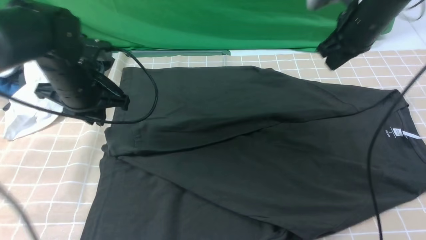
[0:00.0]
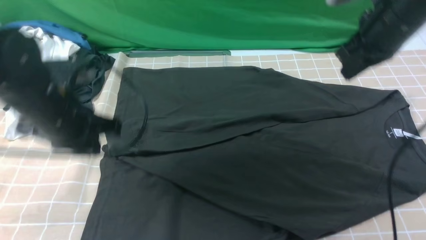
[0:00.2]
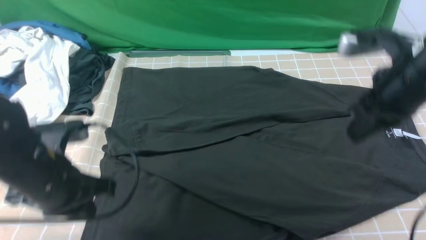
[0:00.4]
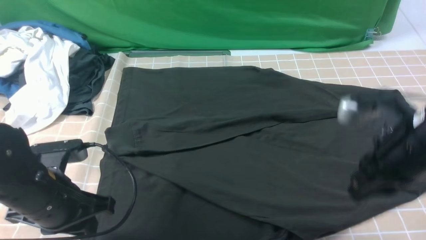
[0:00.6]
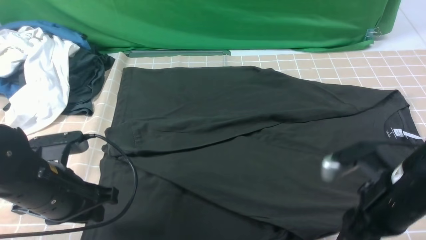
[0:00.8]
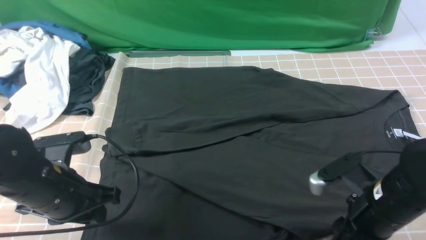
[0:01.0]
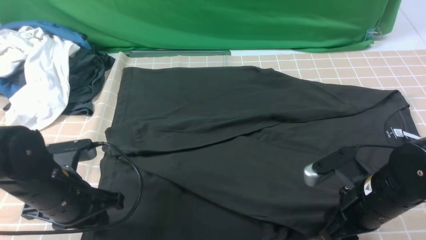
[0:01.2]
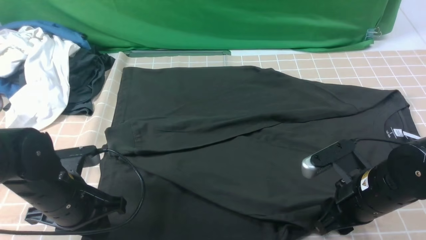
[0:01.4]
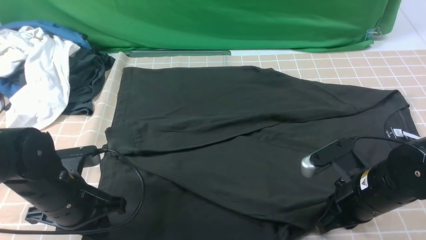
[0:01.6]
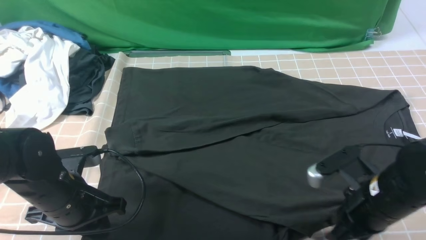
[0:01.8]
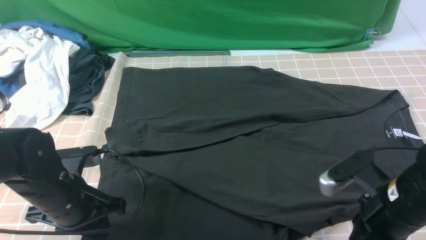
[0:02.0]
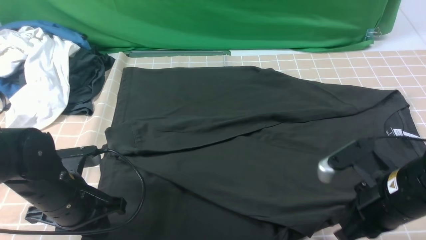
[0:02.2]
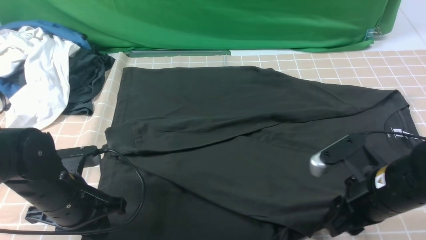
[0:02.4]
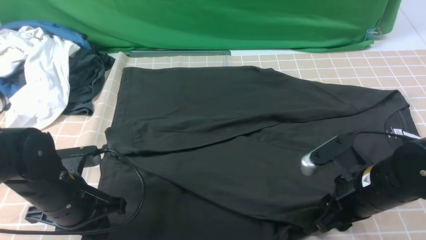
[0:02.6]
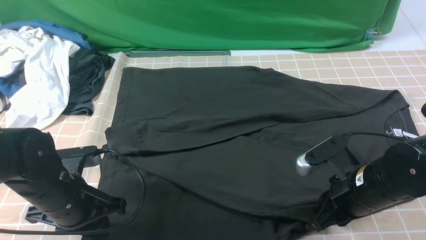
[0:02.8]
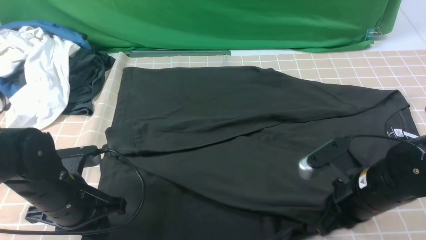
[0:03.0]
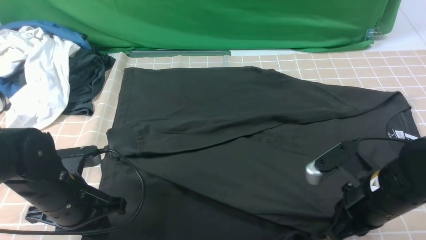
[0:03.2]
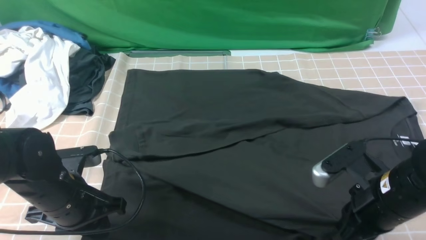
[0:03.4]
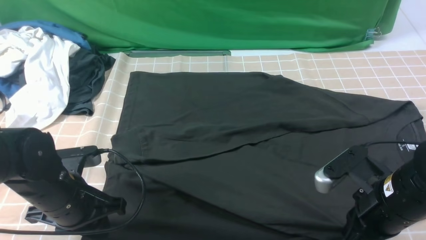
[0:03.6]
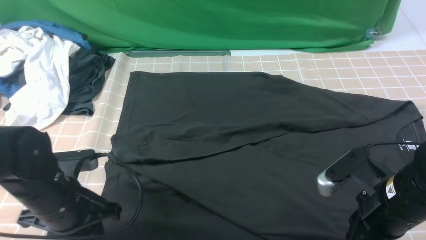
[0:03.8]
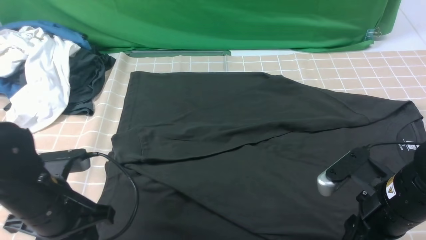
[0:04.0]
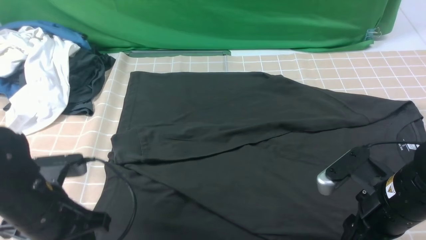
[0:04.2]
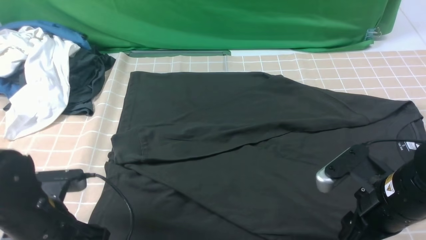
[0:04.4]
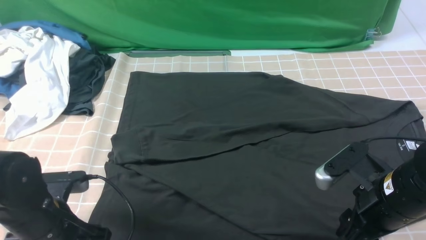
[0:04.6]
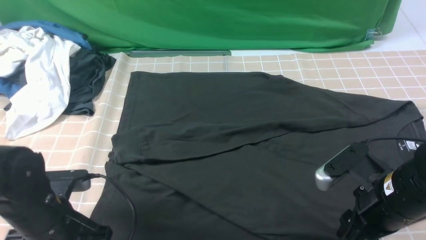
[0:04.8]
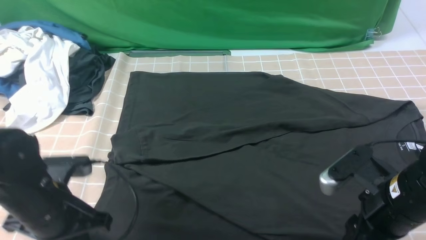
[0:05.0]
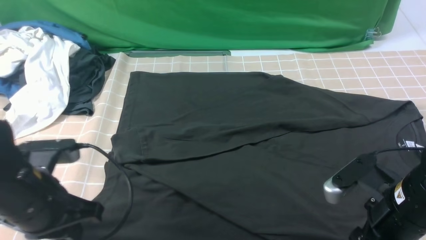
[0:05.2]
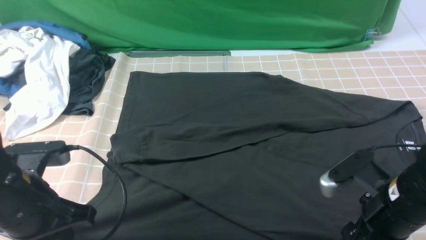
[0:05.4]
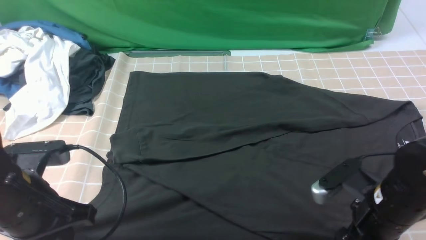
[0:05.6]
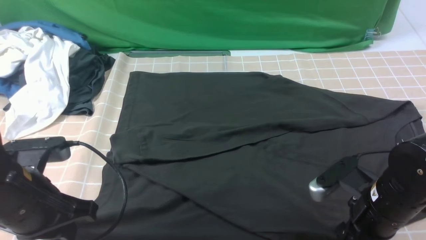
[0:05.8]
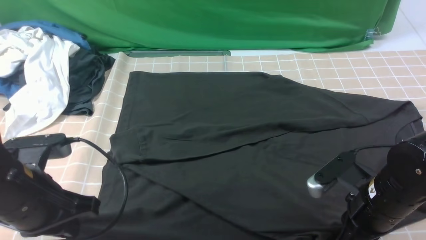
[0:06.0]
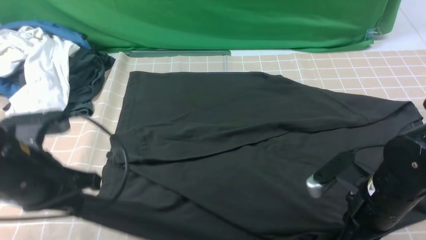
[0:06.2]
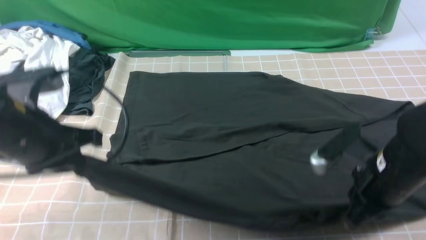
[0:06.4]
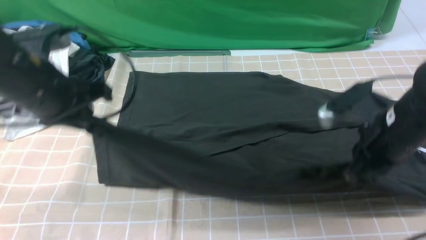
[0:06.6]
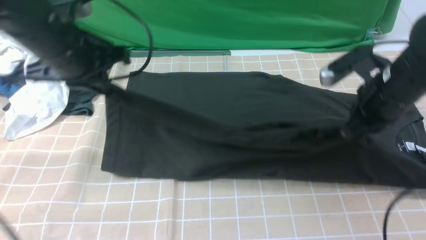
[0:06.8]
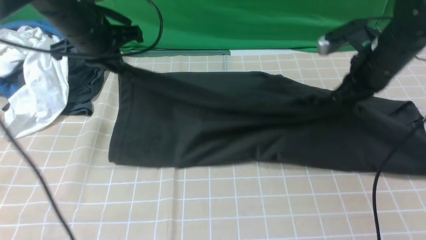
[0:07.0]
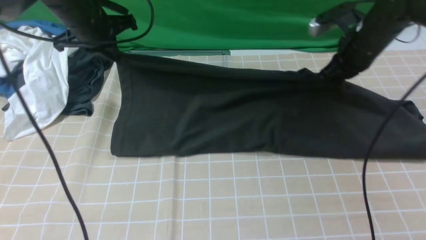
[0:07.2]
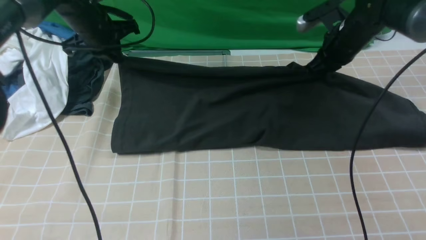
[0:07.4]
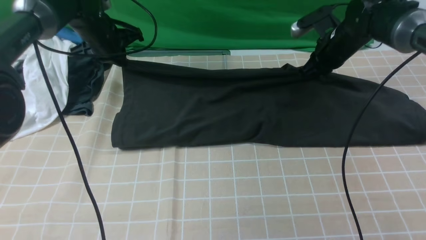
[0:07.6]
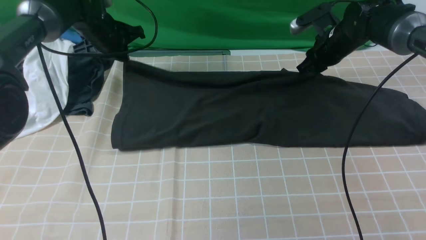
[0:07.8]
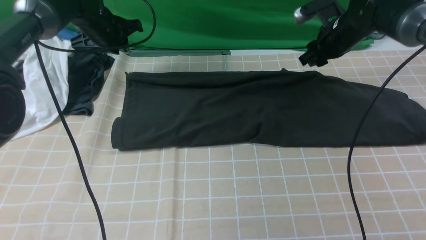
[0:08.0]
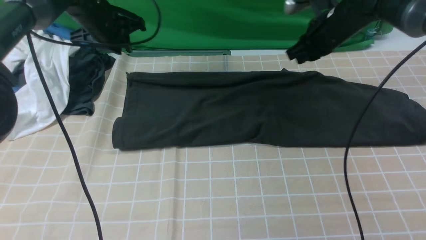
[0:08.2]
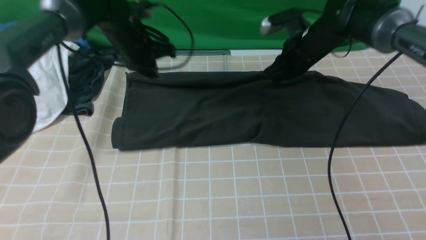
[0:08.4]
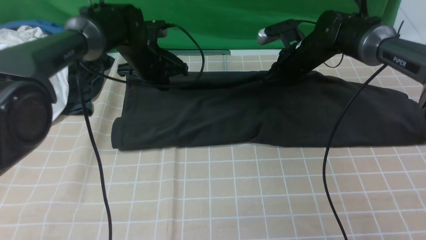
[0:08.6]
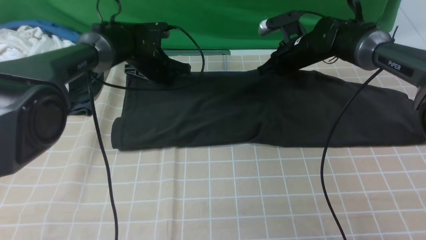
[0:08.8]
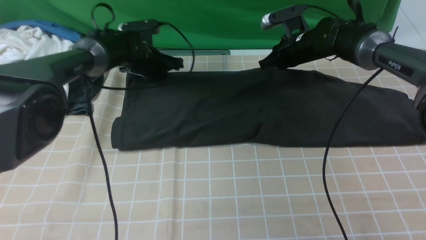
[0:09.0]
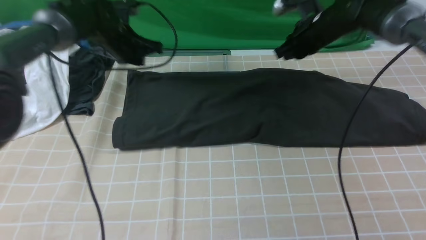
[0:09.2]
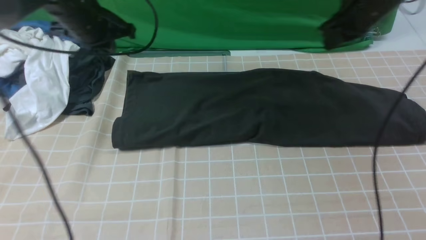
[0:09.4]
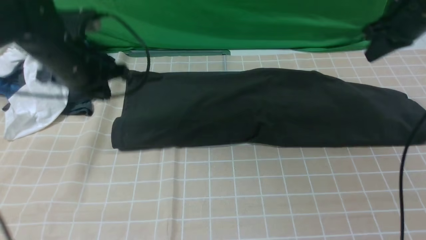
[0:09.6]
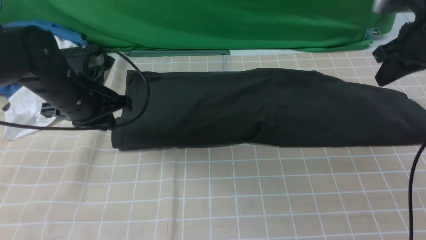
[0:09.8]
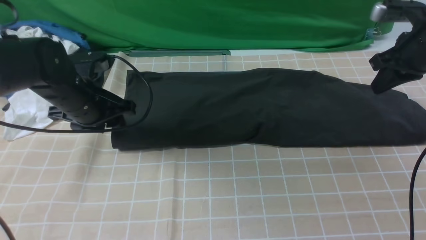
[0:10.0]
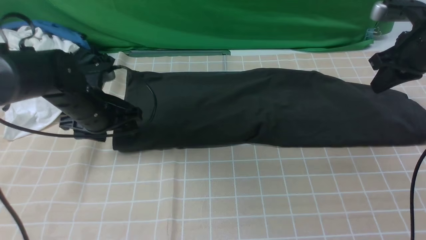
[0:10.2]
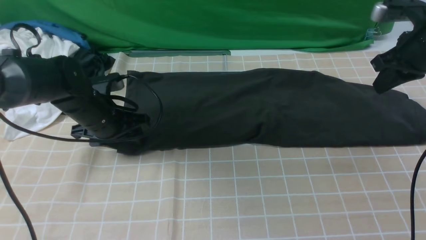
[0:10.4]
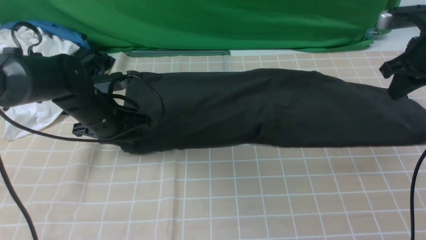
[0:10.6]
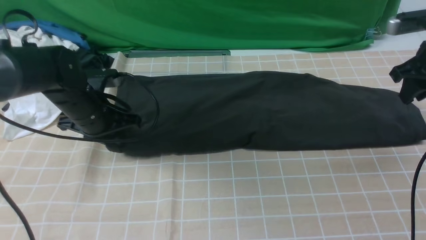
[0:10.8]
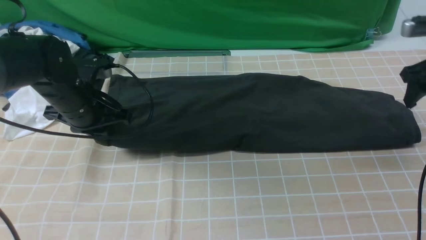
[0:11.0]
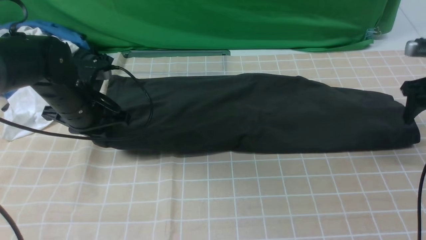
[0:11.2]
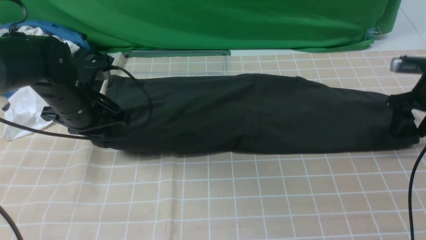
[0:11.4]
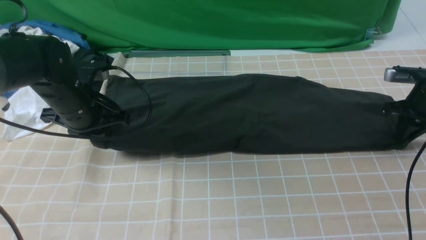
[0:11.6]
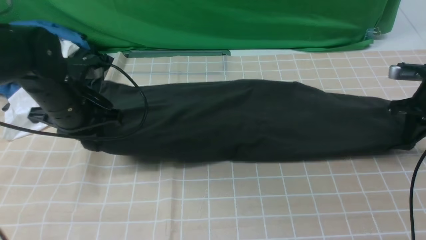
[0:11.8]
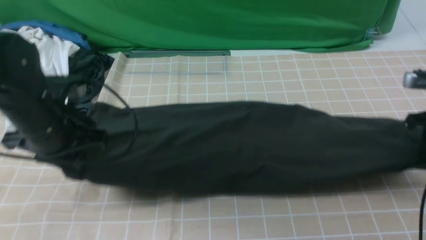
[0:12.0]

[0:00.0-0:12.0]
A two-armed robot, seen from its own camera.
Step, 0:00.0 to 0:05.8: use both arms simultaneously to clamp the lower edge of the clothing fabric.
Step, 0:06.0 to 0:07.8: use both arms to drag the lower edge of the fabric forward and fold it over the upper edge.
0:00.0 to 0:01.6: The right gripper travels backward and downward by approximately 25 cm, and opens, then closes once more. Meanwhile the left gripper shifts roughly 15 cm backward and downward.
0:01.6 to 0:03.0: The right gripper opens, then closes once more.
0:03.0 to 0:04.4: The left gripper opens up; the right gripper opens.
0:04.4 to 0:06.0: The right gripper closes its fingers. The left gripper shifts about 5 cm upward, and closes up.
0:06.0 to 0:07.6: The grippers both shift forward by about 30 cm.
0:07.6 to 0:09.0: The right gripper heads to the left, covering some 5 cm, while the left gripper travels to the right and downward by roughly 10 cm.
0:09.0 to 0:10.4: The right gripper heads to the right, backward and upward, covering about 20 cm, while the left gripper goes some 15 cm backward, and opens its fingers.
0:10.4 to 0:12.0: The left gripper moves backward and upward, roughly 10 cm, and closes. The right gripper heads downward and backward, covering about 10 cm, and opens and closes again.

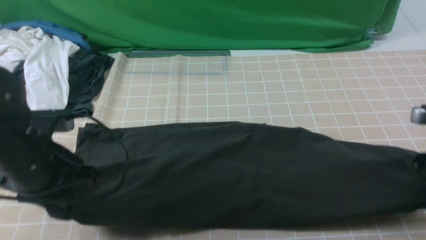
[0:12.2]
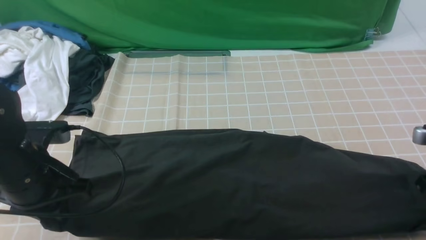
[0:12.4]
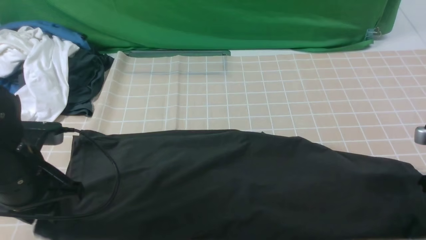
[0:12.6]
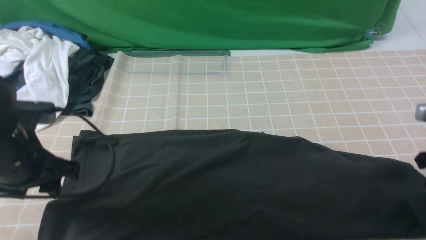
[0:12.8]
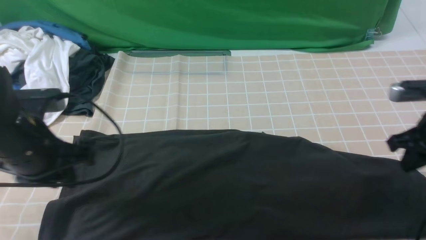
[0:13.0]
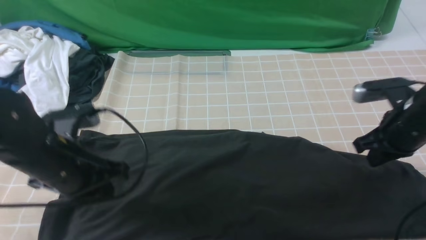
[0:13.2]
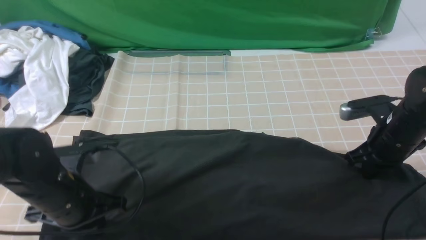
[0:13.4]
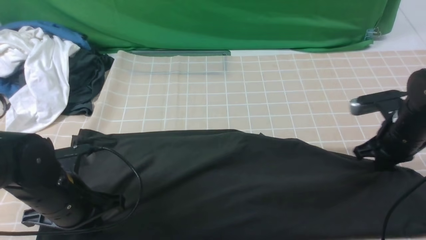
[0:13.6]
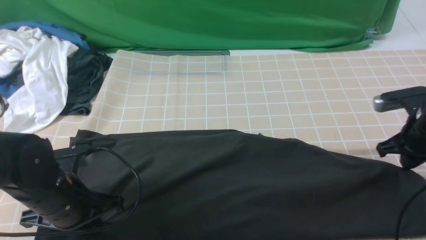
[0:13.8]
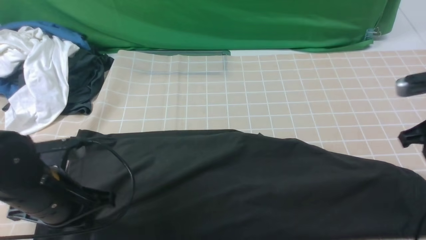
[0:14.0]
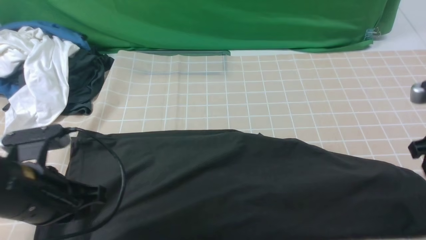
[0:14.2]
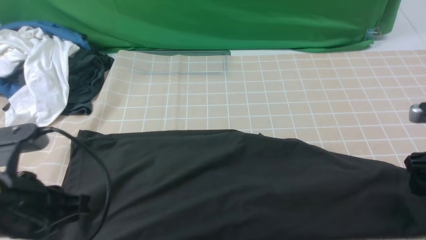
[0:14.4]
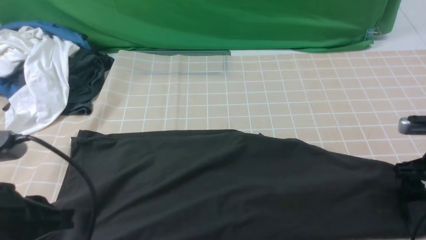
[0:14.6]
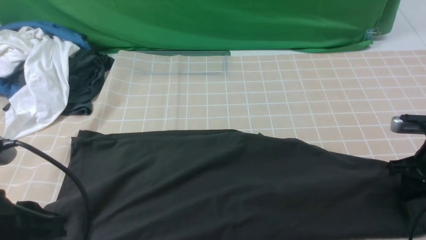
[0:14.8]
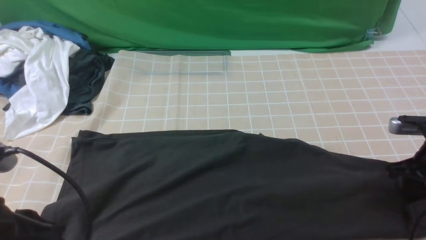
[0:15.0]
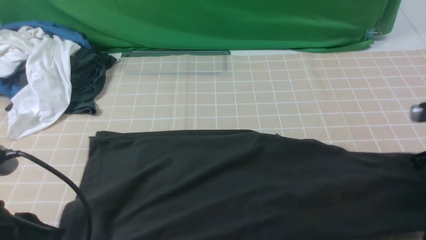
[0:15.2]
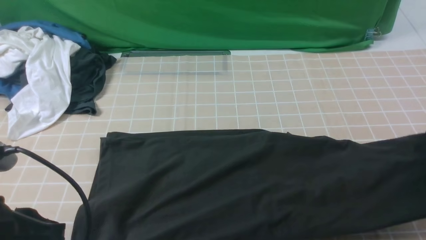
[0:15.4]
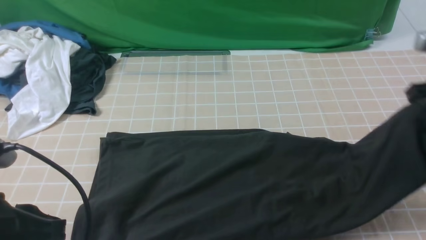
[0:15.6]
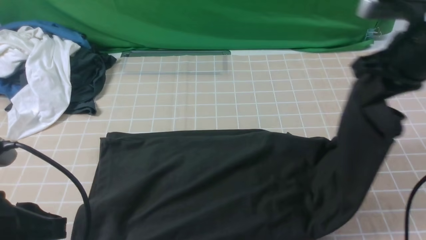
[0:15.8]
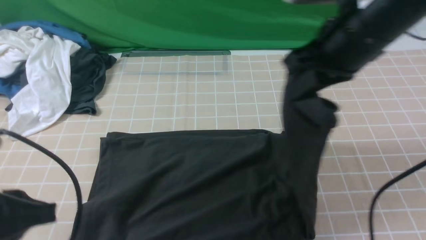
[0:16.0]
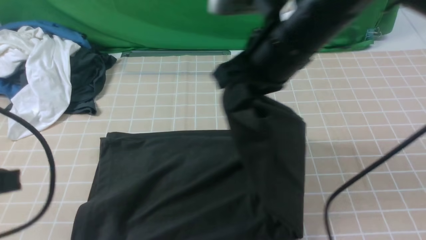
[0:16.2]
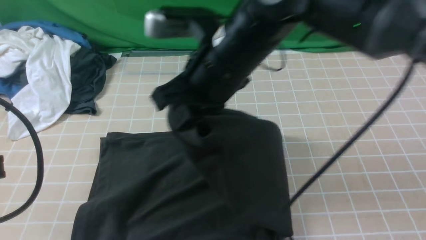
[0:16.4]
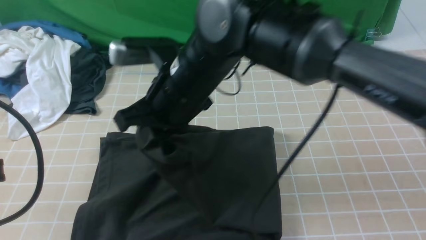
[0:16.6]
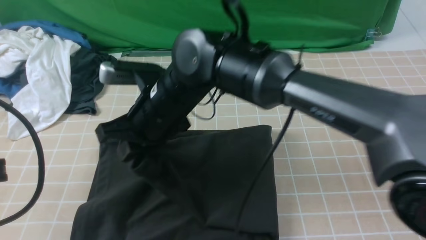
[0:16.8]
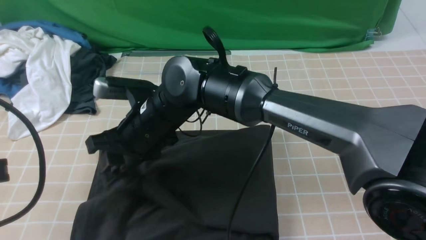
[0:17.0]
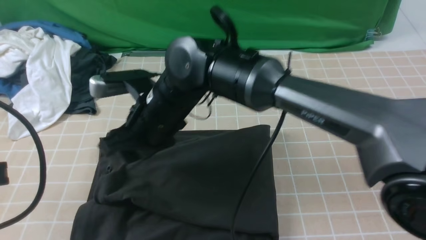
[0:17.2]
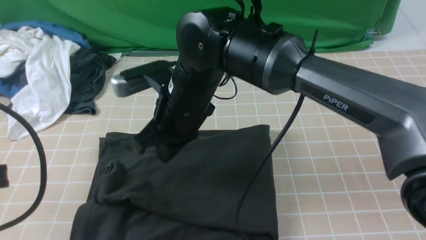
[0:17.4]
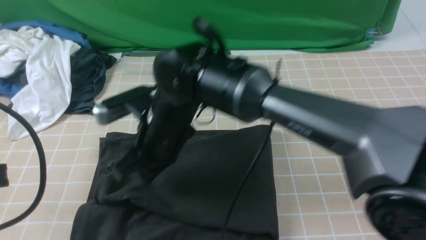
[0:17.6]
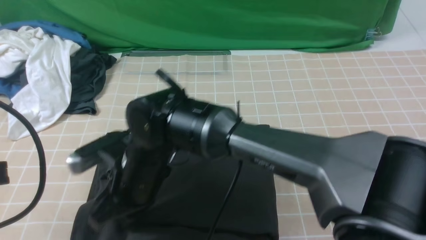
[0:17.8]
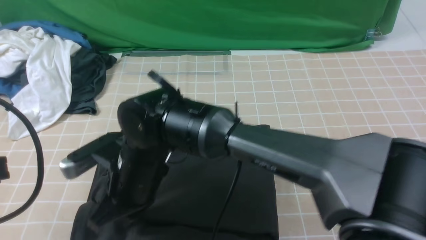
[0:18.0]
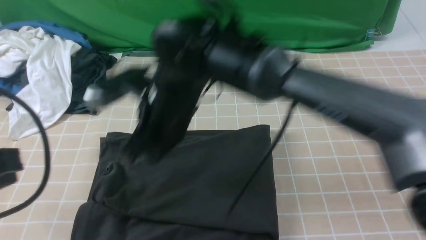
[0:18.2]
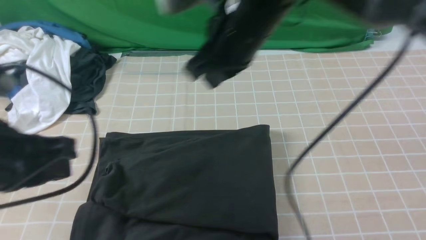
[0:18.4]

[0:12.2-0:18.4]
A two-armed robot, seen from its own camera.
Step, 0:12.2 to 0:14.8: use the right arm to clamp the right edge of the fabric.
Step, 0:15.2 to 0:17.0: use the right arm to drag the right edge of the fabric to the left and folds it over the left edge.
0:12.2 to 0:13.8: The left gripper goes some 5 cm downward, and opens and closes again. The right gripper opens, then closes again.
0:13.8 to 0:15.4: The right gripper goes roughly 5 cm upward, and opens, then closes once more; the left gripper travels upward and backward by about 15 cm.
0:15.4 to 0:16.8: The right gripper is displaced to the left by approximately 40 cm, while the left gripper moves upward, some 5 cm.
0:16.8 to 0:18.4: The left gripper heads forward, covering some 5 cm, while the right gripper is displaced to the right and upward by some 15 cm, and closes up.
